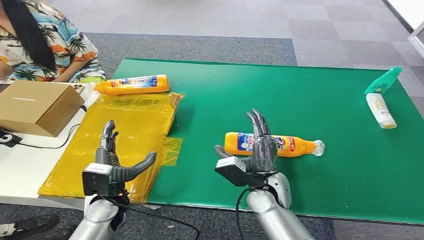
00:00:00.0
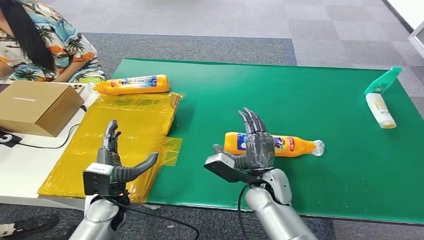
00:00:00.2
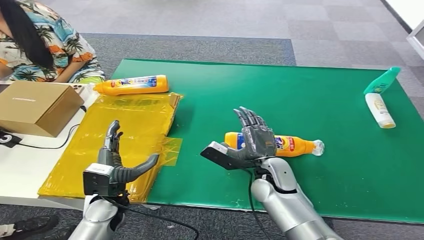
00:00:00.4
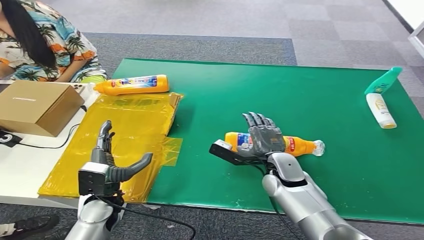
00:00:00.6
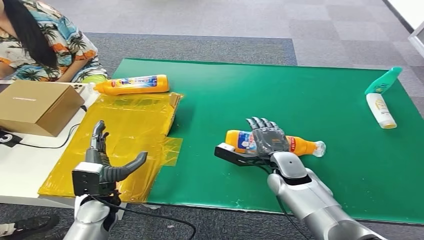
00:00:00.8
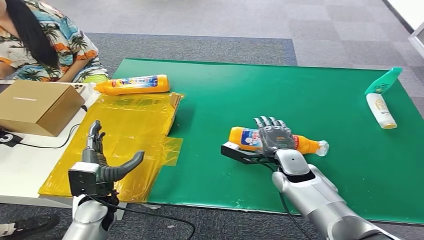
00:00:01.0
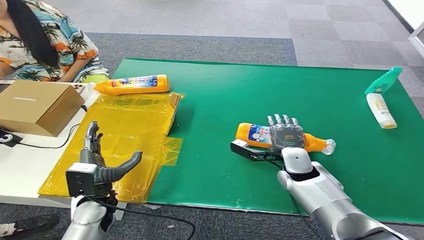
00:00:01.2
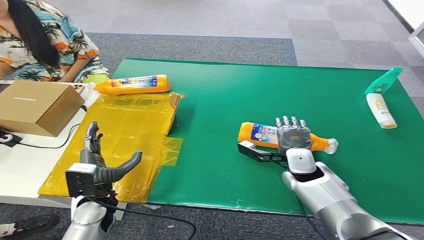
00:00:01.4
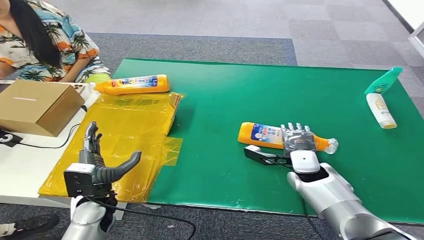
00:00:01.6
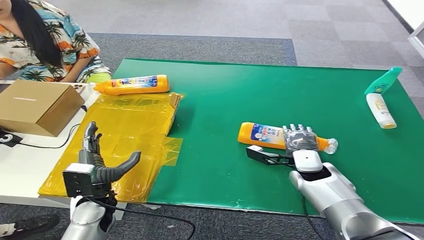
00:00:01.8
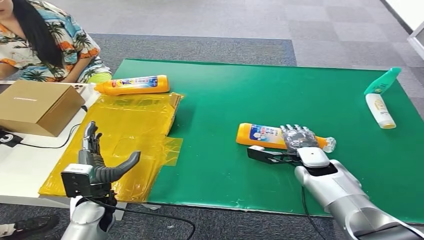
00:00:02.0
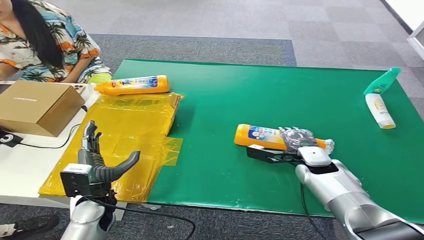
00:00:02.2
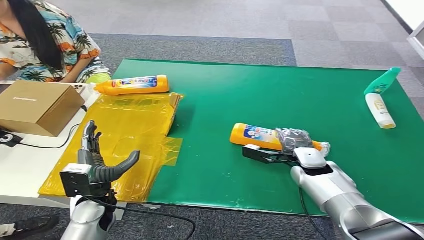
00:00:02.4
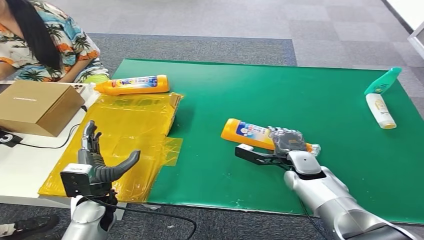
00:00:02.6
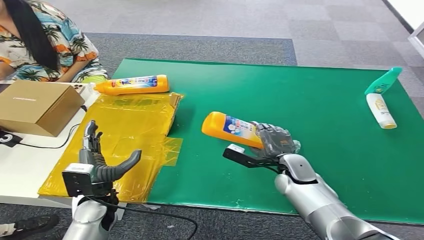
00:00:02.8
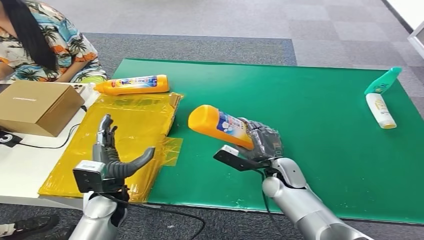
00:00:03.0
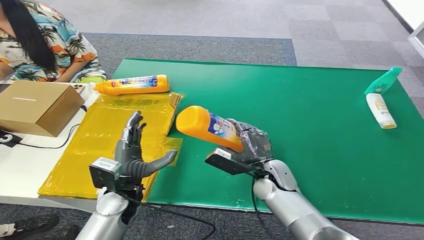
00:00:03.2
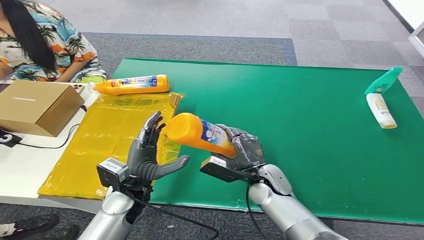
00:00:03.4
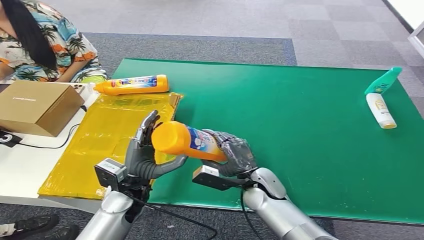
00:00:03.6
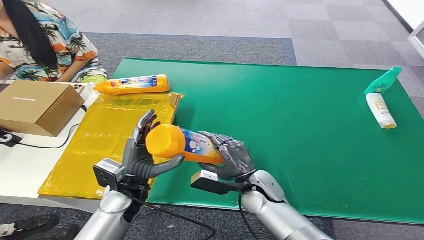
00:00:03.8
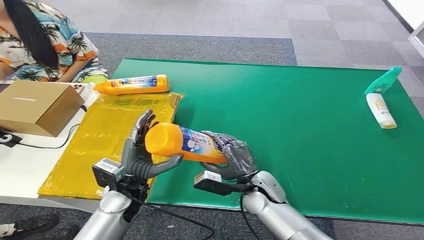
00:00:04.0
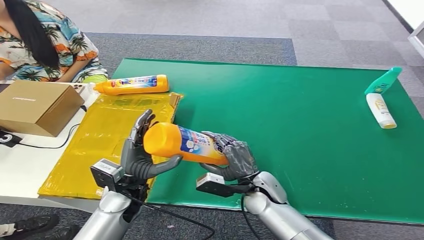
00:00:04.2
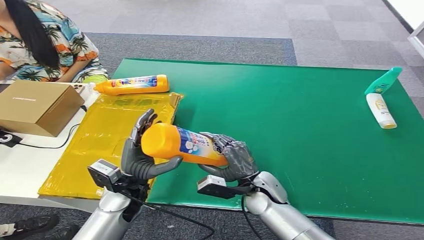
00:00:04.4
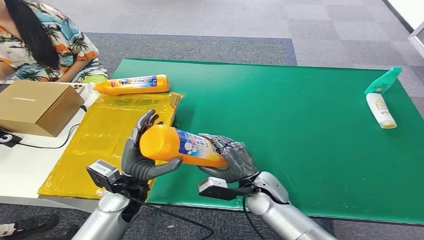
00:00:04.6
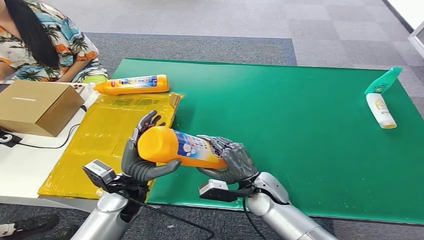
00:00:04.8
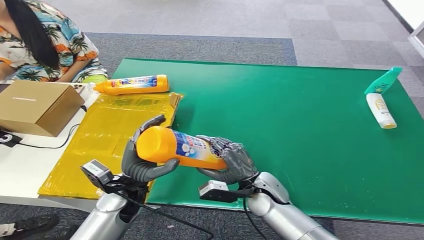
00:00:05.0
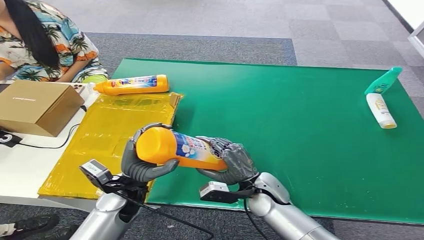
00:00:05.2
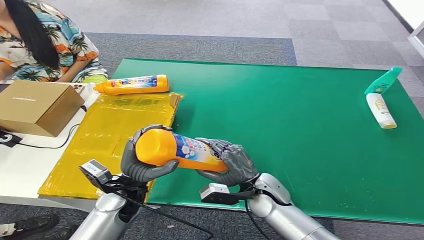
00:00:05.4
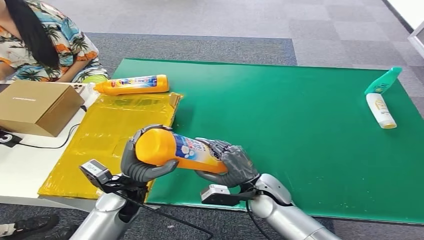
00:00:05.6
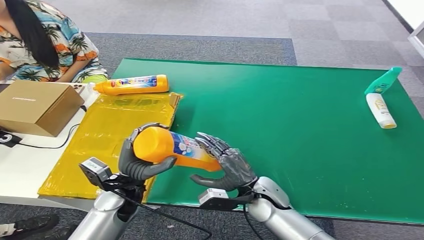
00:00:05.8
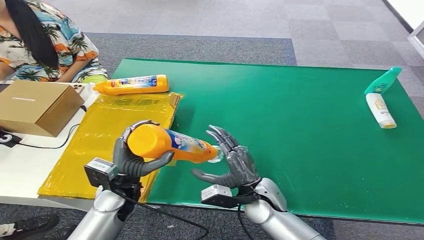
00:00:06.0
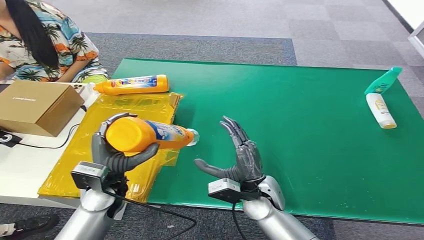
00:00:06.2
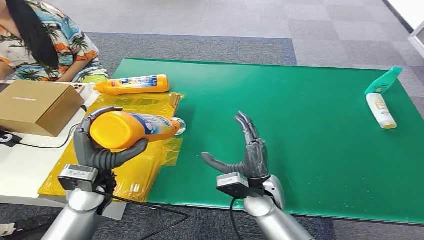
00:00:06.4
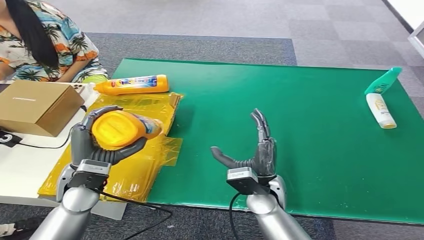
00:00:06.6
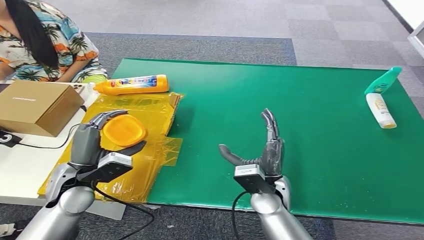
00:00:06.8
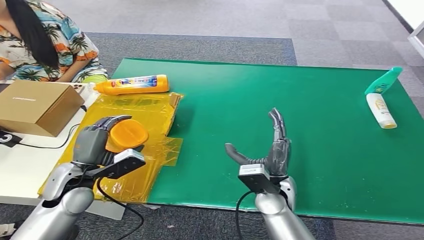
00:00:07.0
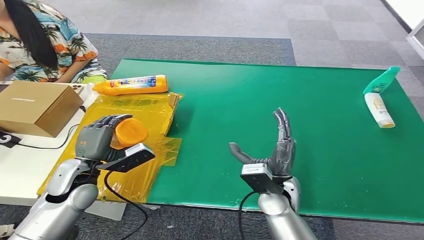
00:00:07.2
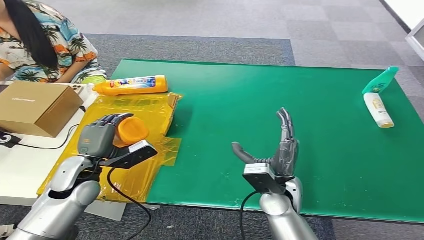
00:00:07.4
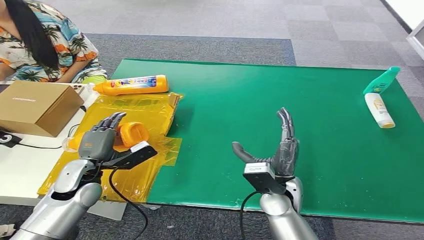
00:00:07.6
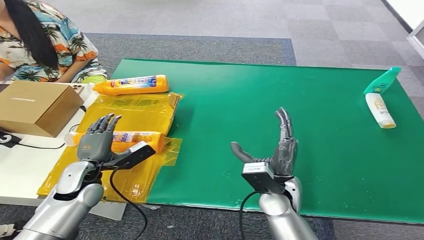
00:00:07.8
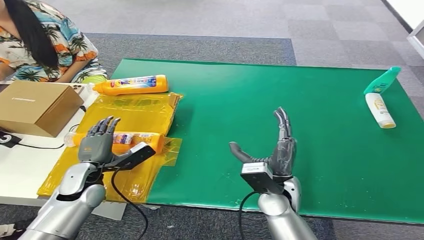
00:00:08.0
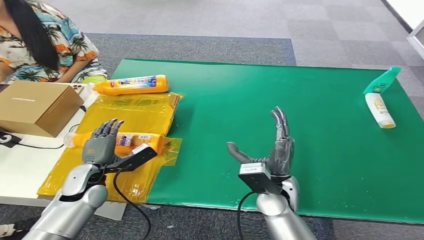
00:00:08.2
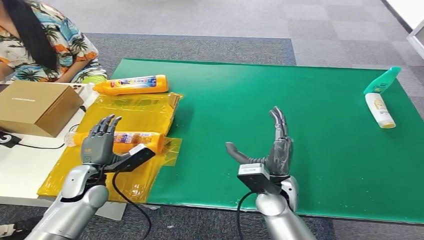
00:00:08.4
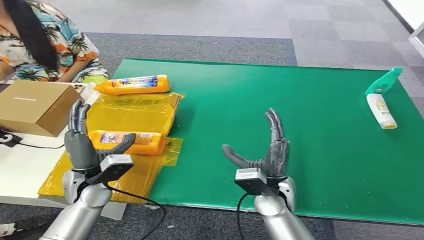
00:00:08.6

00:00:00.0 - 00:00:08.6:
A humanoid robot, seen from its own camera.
Step, 00:00:00.0 - 00:00:03.6: Pick up the bottle from the table.
Step, 00:00:03.8 - 00:00:08.4: Turn the bottle to the front side.
00:00:02.8 - 00:00:04.4: The right hand shifts some 10 cm to the left and backward; the left hand is displaced to the right by approximately 5 cm.
00:00:04.4 - 00:00:05.8: The hands stay close to where they were, moving slightly.
00:00:05.8 - 00:00:07.2: The left hand moves to the left, roughly 10 cm.

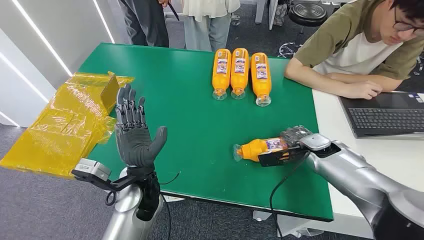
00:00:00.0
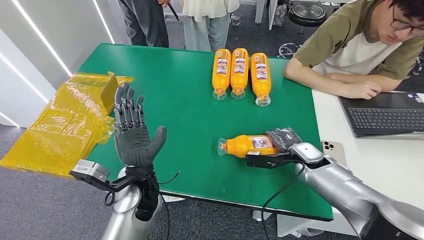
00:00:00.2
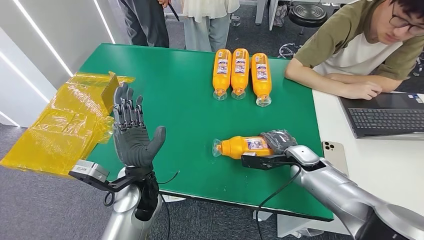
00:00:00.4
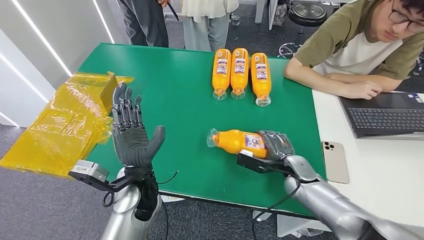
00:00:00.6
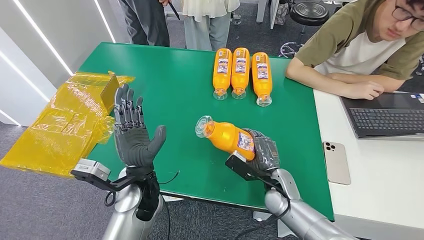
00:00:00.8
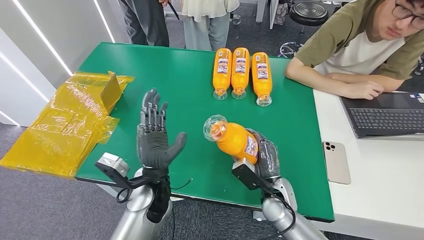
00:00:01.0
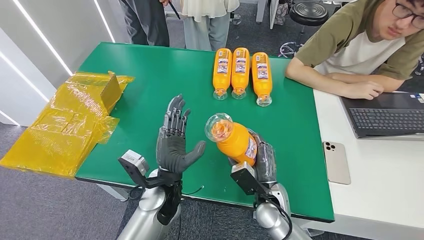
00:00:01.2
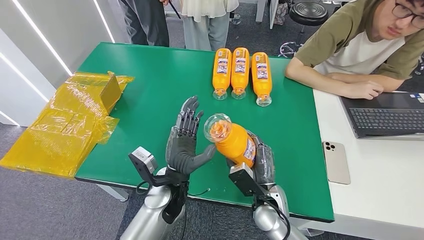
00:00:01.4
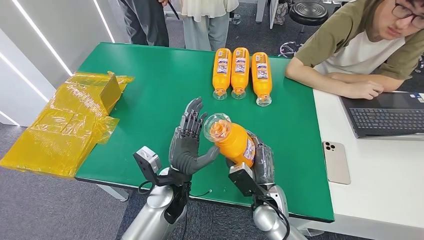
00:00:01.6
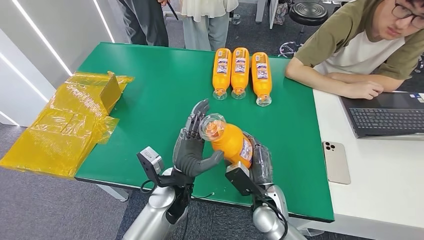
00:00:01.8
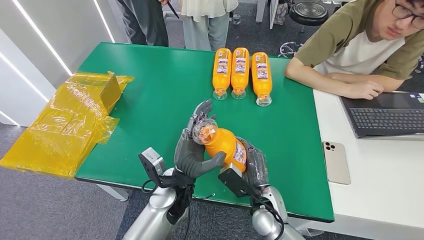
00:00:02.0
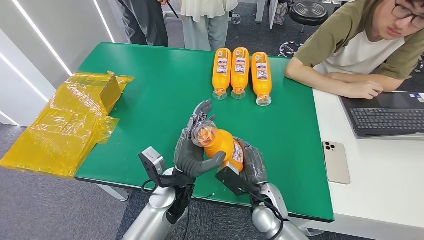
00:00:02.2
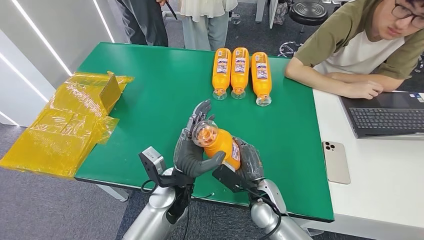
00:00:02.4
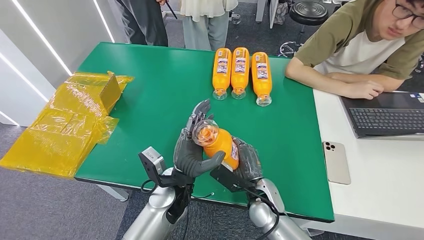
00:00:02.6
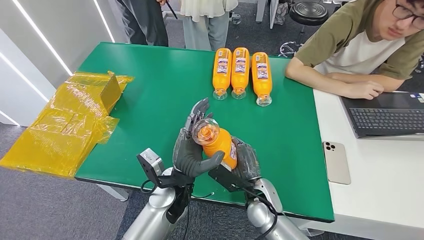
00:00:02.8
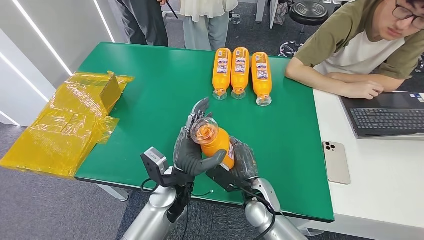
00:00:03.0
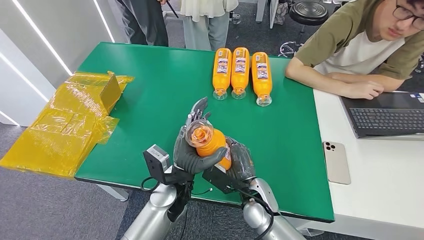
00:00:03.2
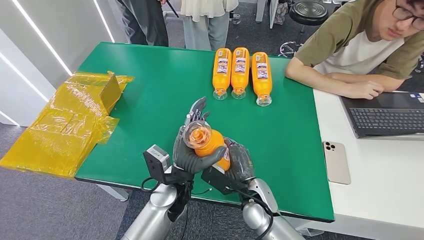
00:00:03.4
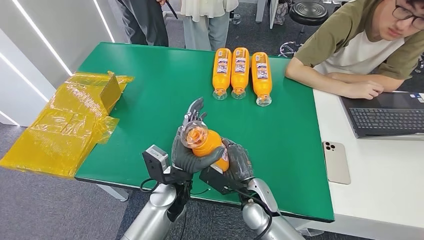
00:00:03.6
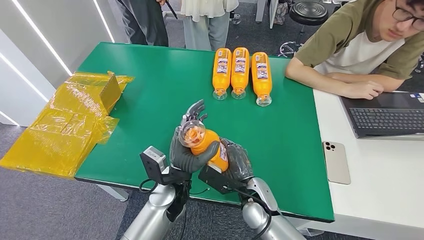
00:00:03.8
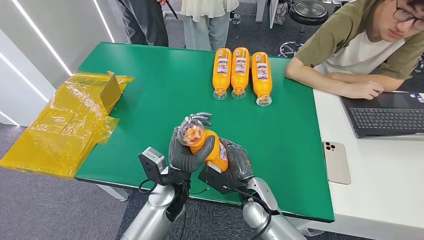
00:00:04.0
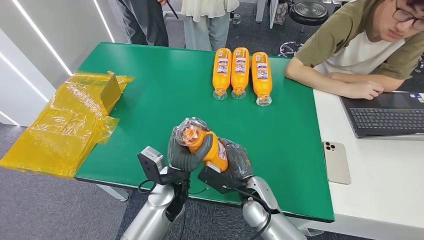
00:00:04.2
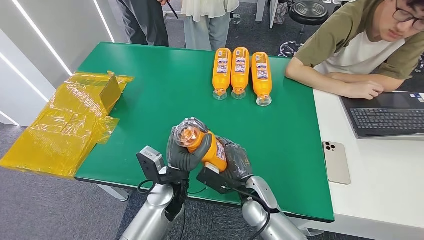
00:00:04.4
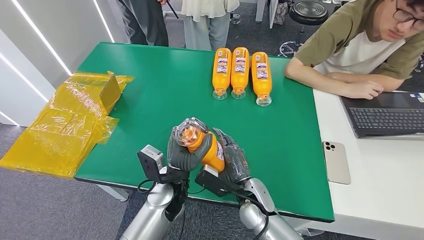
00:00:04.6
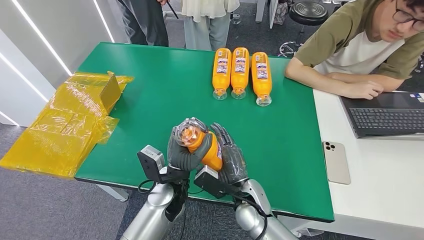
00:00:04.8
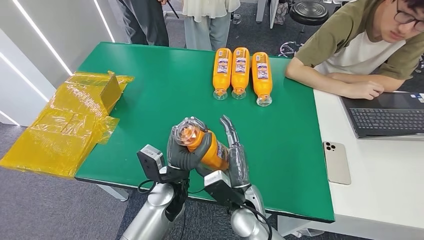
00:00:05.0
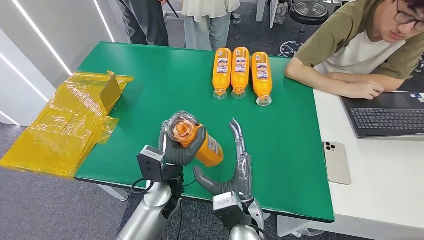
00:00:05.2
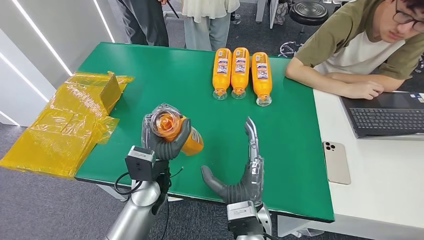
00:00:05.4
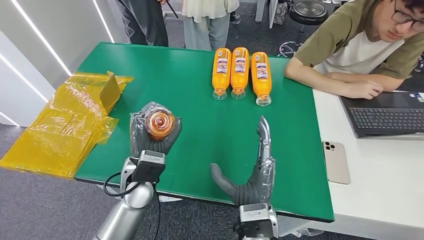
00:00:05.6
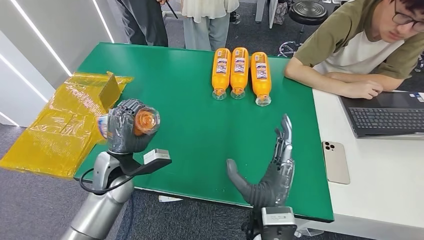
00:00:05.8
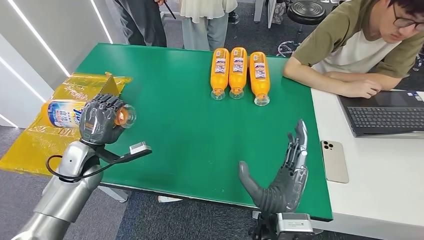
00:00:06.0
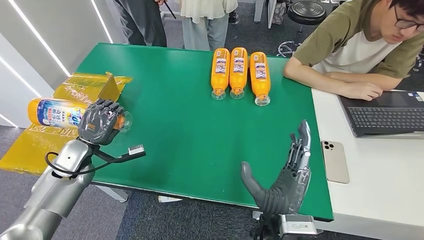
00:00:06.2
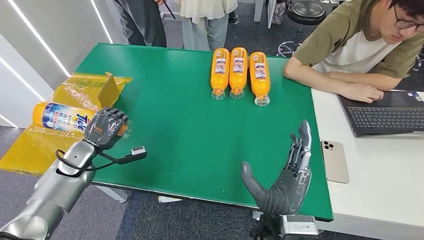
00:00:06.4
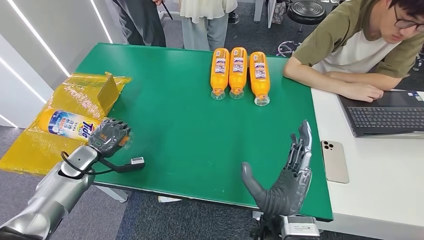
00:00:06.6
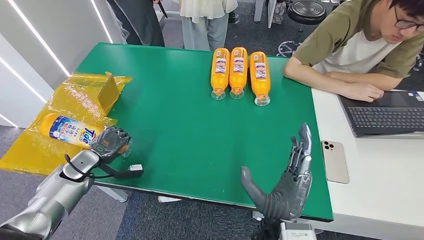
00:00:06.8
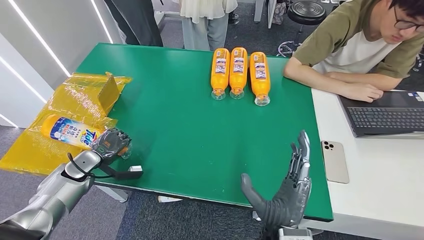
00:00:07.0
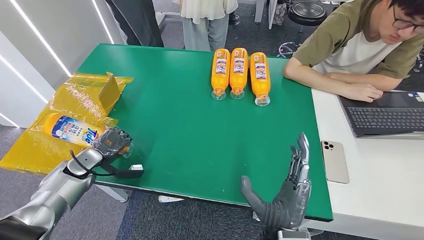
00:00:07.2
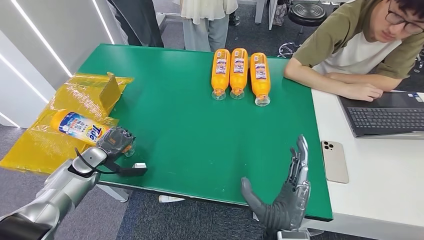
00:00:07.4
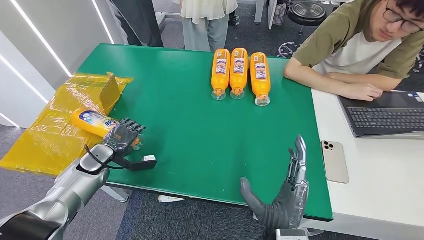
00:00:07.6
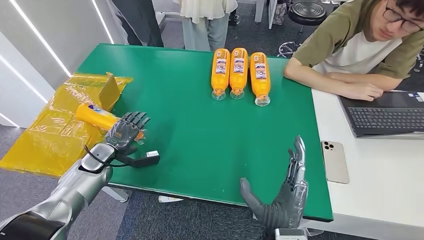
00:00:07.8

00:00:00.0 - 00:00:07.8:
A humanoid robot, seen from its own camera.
Step, 00:00:00.0 - 00:00:02.8: Pick up the bottle from the table.
Step, 00:00:03.0 - 00:00:07.6: Turn the bottle to the front side.
00:00:03.2 - 00:00:04.6: The hands move only a little.
00:00:06.2 - 00:00:07.8: The left hand shifts about 5 cm downward.
